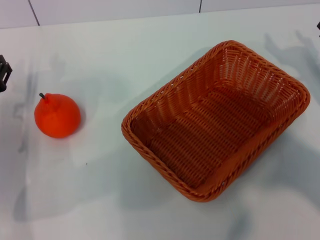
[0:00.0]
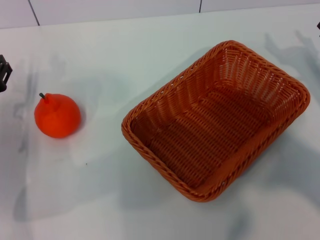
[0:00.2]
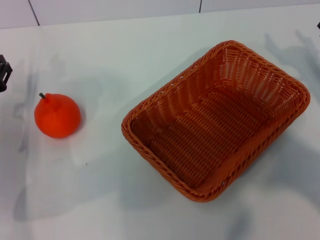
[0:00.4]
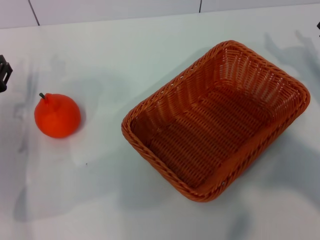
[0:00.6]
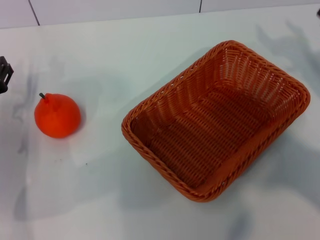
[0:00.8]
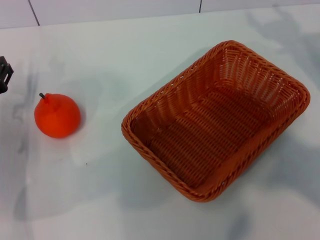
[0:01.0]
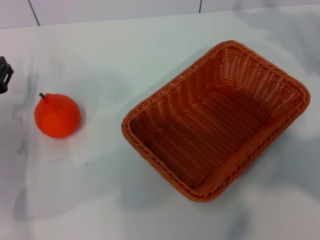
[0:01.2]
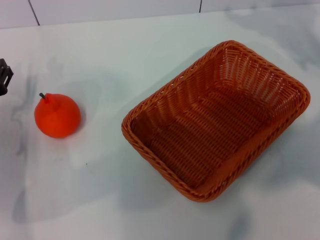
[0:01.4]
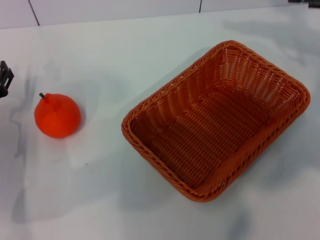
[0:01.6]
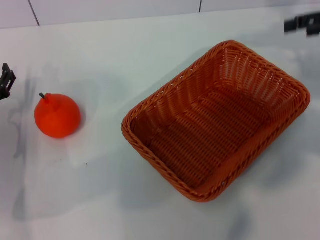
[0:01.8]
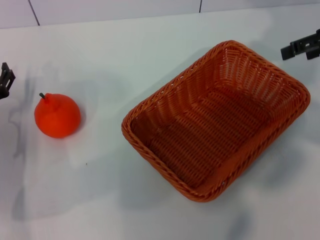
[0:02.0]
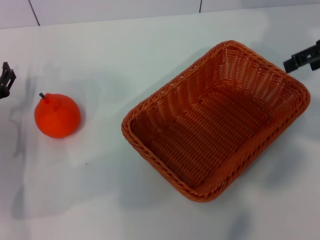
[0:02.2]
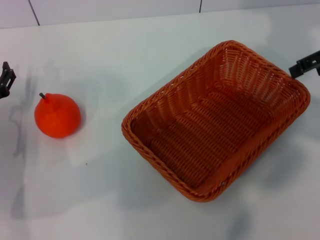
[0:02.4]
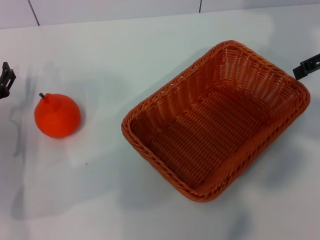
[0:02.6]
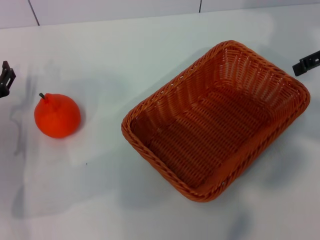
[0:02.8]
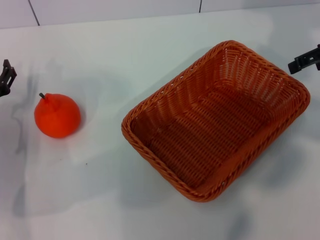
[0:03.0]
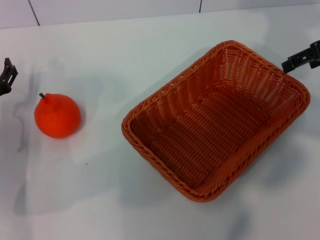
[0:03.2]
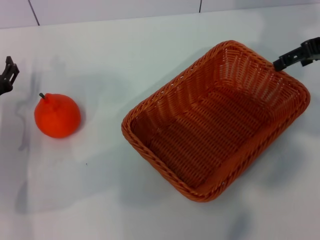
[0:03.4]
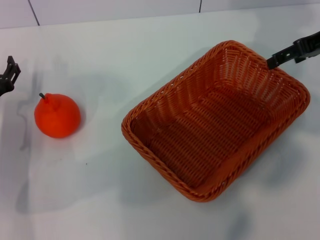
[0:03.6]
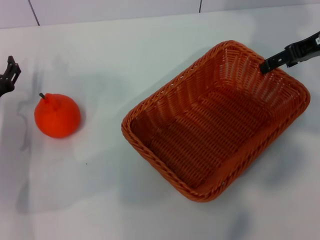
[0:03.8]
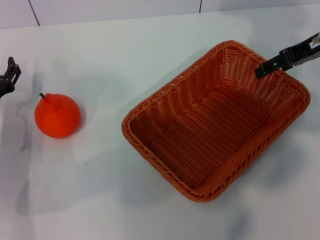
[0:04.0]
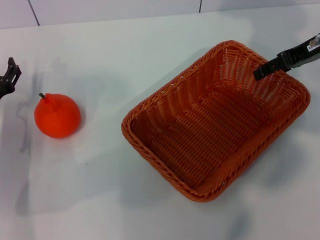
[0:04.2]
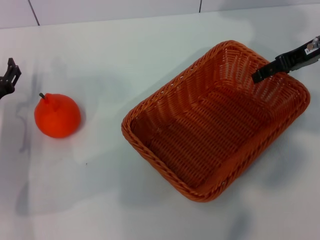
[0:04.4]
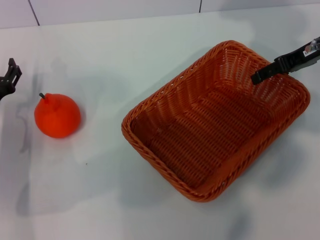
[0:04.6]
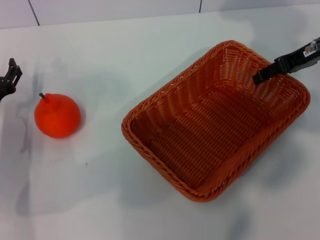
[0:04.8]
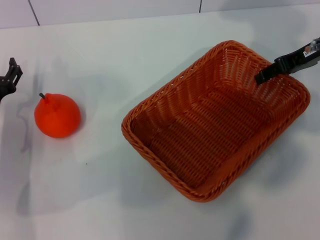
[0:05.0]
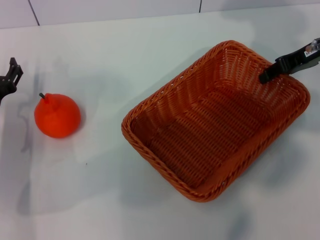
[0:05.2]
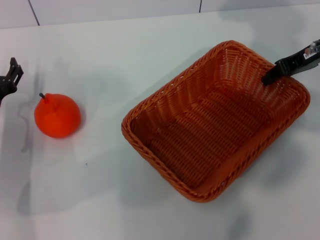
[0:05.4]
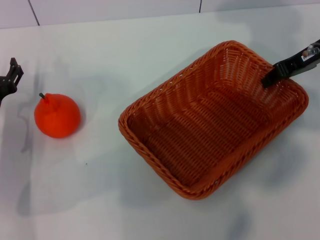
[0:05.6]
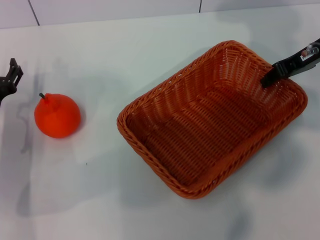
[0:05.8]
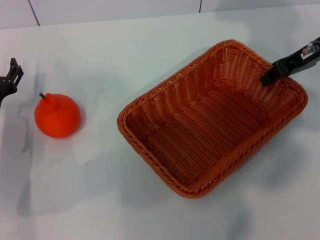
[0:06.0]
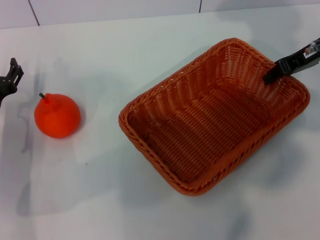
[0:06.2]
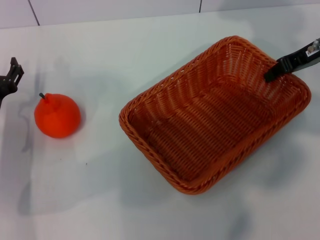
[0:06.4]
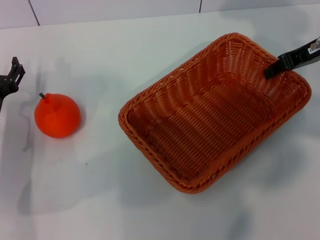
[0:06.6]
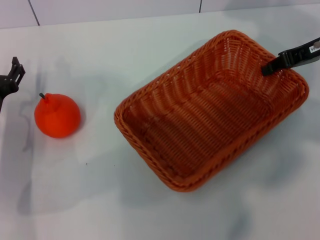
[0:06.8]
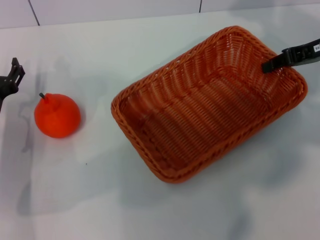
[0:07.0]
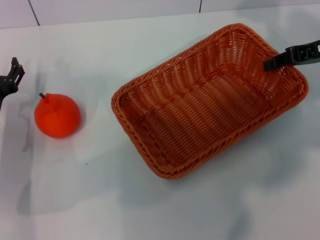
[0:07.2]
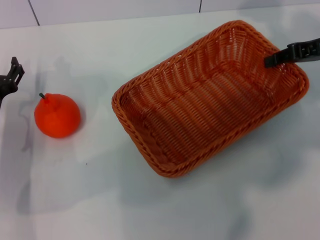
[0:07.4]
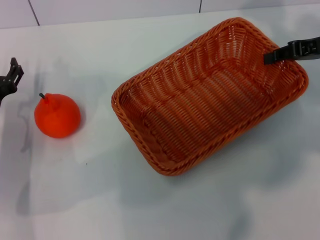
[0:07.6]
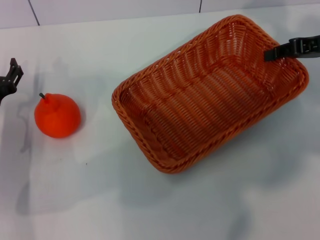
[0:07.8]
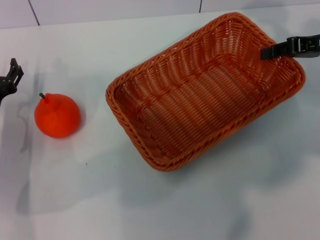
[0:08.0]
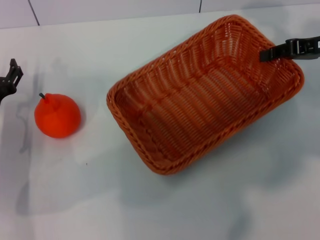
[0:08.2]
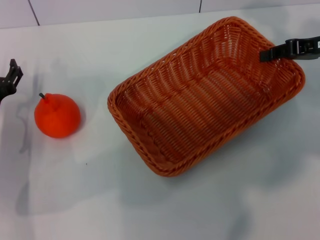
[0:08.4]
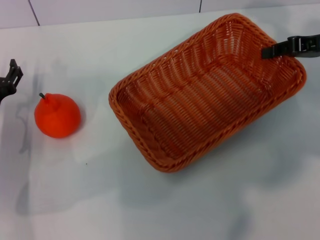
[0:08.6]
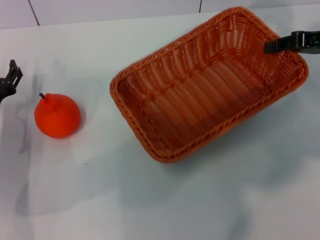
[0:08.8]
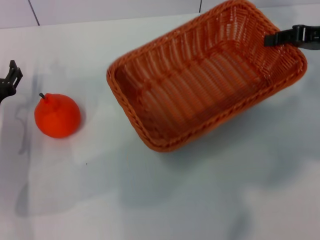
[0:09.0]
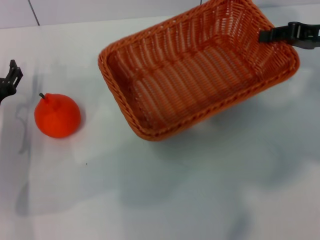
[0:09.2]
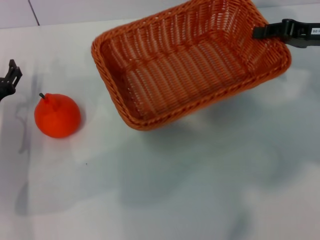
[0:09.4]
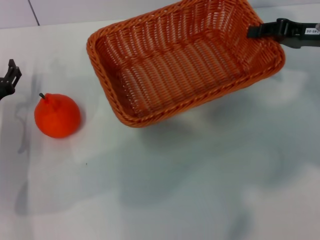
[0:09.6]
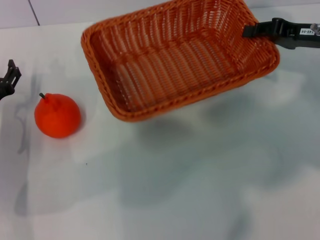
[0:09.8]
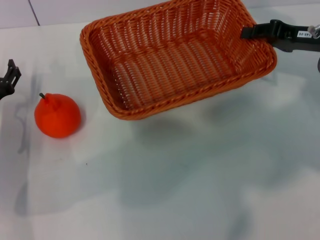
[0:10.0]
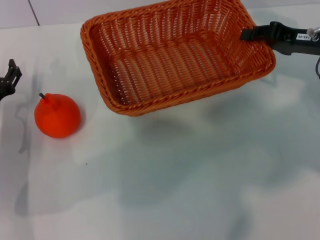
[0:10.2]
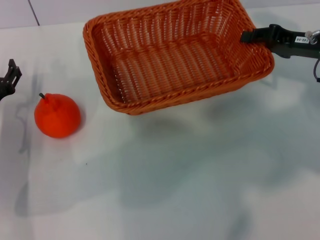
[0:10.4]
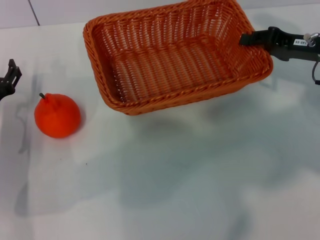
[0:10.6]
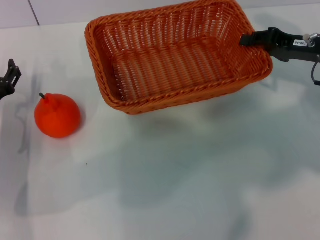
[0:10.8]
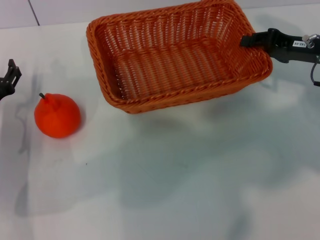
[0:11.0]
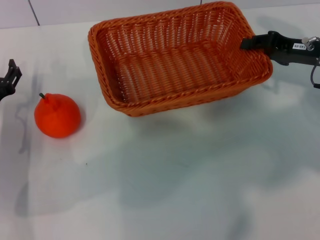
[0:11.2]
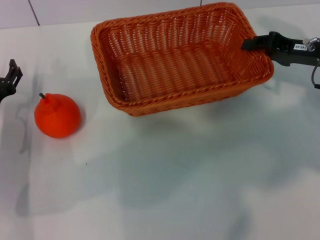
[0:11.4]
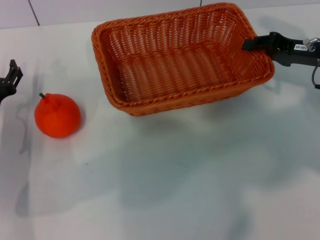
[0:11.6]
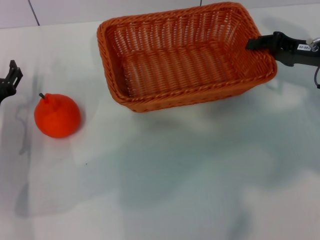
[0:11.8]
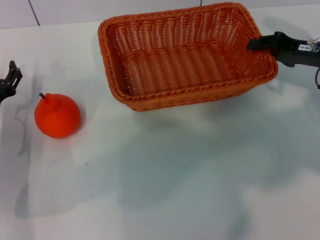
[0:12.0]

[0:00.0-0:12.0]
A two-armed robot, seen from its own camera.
Task of the whole recording: the right gripper pick up the yellow basket and place it horizontally in the middle of the table, the left gripper pick up the orange and place it into the yellow basket.
Step, 0.0 to 7.0 s: Pick up the light basket with the right gripper.
0.0 to 1.6 s: The right gripper goes about 15 cm upward and forward.
3.0 to 4.4 s: The right gripper shifts by roughly 5 cm.
4.4 to 6.0 s: The right gripper closes.
7.6 to 9.0 s: The grippers stay close to where they were, moving slightly.
9.0 to 10.4 s: The right gripper shifts by about 5 cm.
10.4 to 12.0 s: The grippers stay close to where they were, moving slightly.

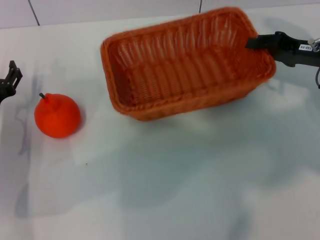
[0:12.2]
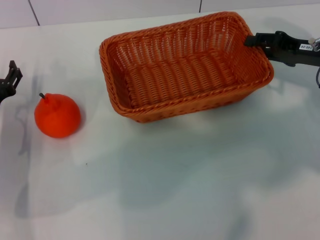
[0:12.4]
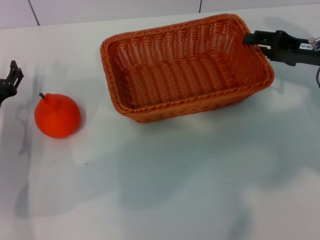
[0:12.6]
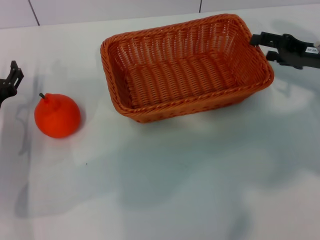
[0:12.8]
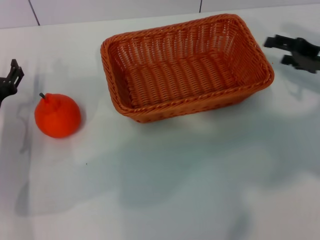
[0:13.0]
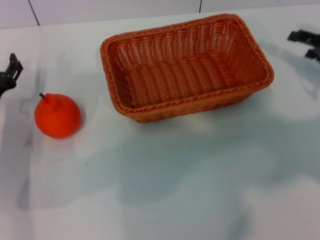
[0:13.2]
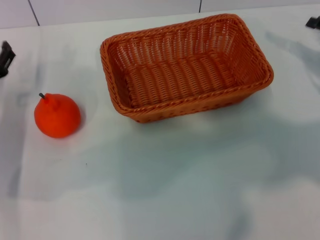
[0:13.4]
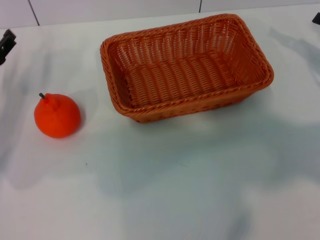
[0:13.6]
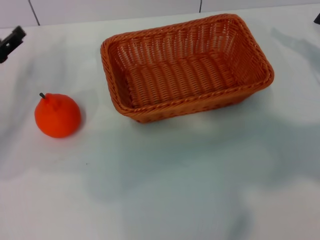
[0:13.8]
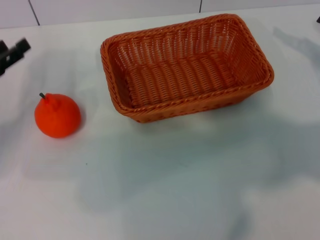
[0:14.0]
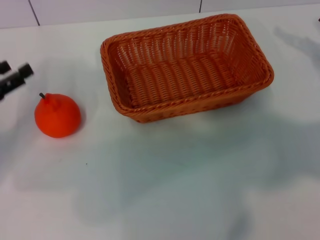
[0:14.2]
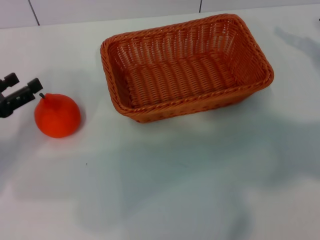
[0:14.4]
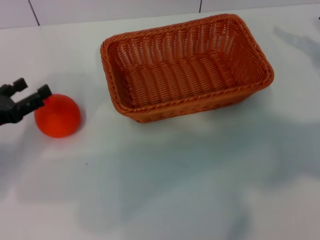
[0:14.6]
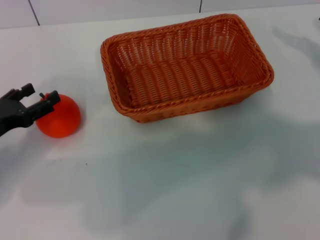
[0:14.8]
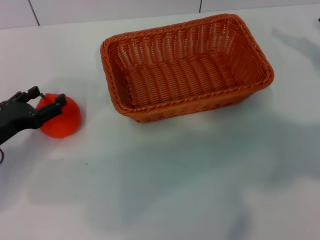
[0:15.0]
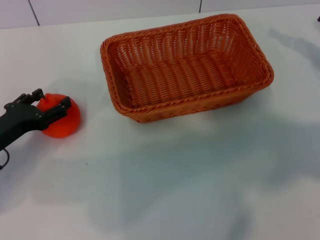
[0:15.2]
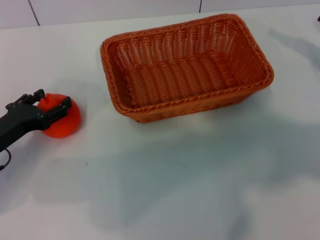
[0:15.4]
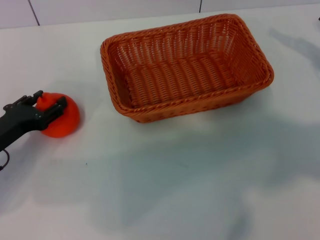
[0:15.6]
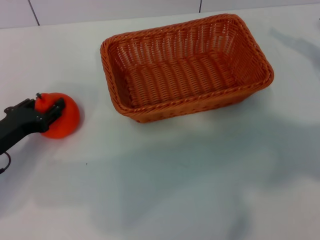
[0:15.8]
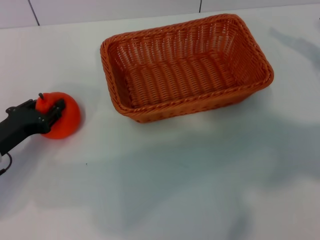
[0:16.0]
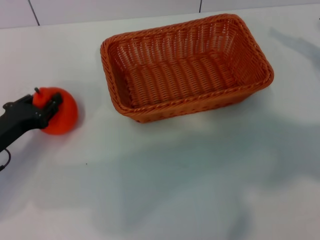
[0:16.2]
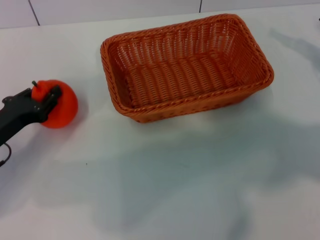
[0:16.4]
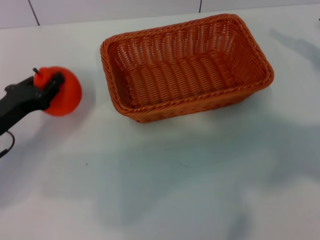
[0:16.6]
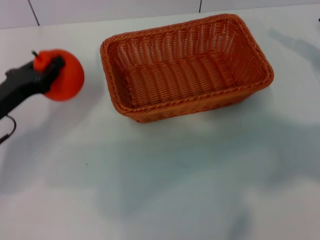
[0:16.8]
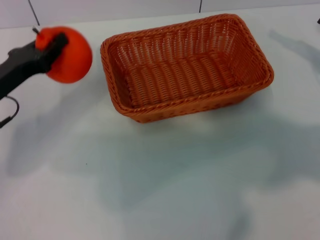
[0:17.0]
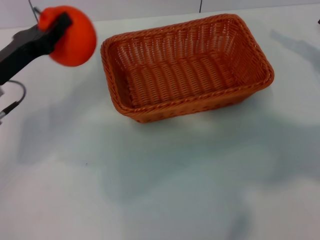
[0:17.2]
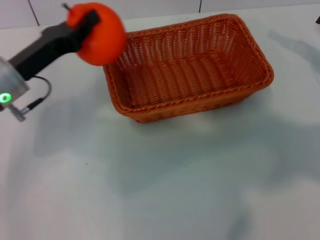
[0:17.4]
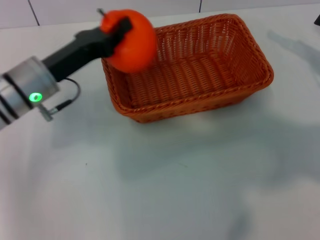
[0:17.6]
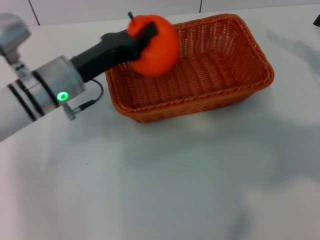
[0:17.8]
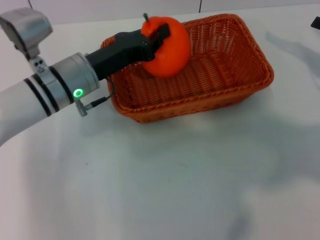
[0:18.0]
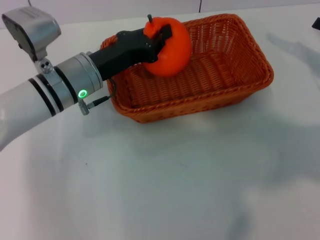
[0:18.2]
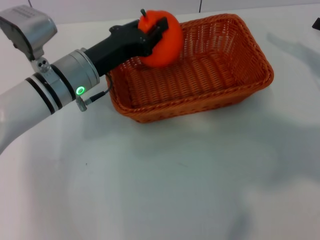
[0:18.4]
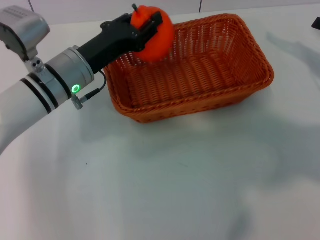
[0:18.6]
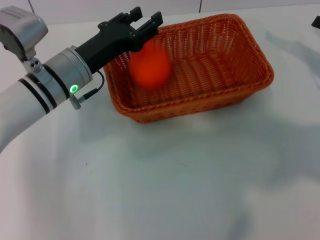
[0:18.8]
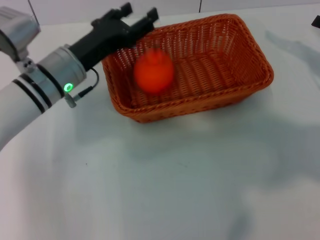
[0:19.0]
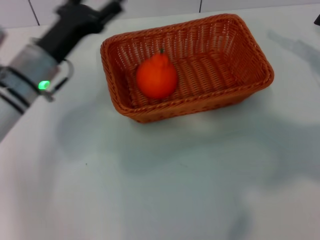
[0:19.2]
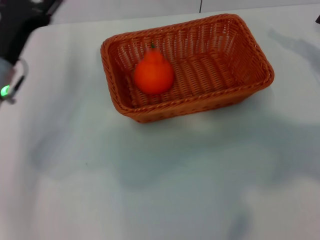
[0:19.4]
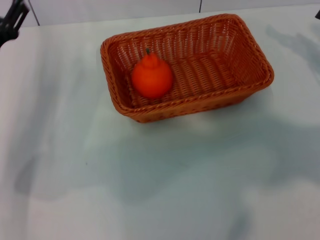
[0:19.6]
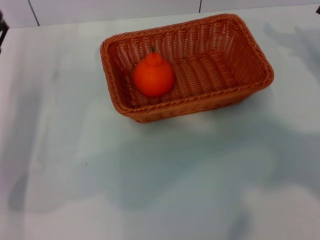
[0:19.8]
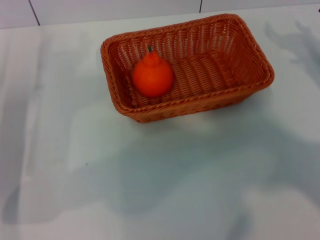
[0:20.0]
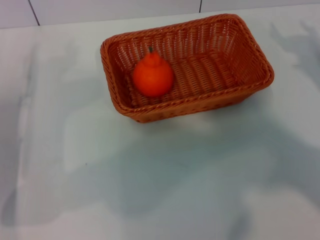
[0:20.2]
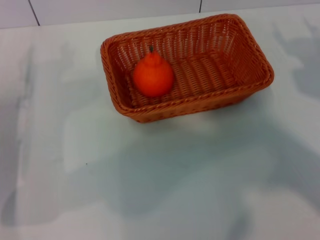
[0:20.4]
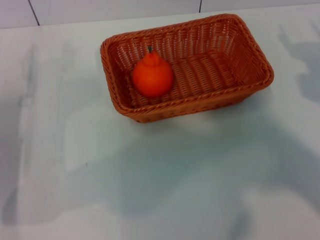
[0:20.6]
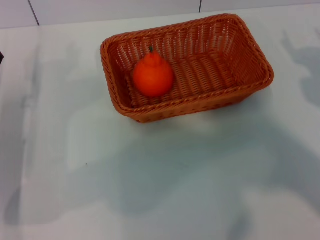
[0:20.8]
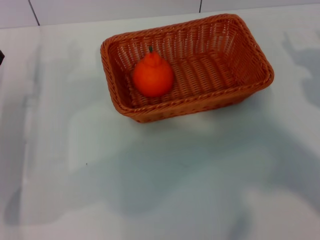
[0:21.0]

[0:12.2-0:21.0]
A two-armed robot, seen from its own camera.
Task of the whole recording: the right gripper pick up the yellow basket and place it horizontally in the middle of the table, the left gripper pick up the orange and place it into the yellow basket.
Step, 13.0 to 16.4 s: Pick up the orange with the left gripper.
Step, 16.8 to 18.8 s: Place the orange into the light basket with the left gripper.
12.2 to 13.6 s: The left gripper moves about 5 cm; the right gripper heads to the right, covering some 10 cm, and opens up.
13.6 to 15.2 s: The left gripper heads backward, covering some 5 cm.
15.2 to 16.6 s: The left gripper closes up.
16.6 to 18.0 s: The left gripper shifts some 15 cm to the right and forward.
18.0 to 19.6 s: The left gripper goes some 10 cm to the left, and opens.
19.6 to 21.0 s: The left gripper shifts by roughly 5 cm, while the right gripper travels backward and downward by some 10 cm.

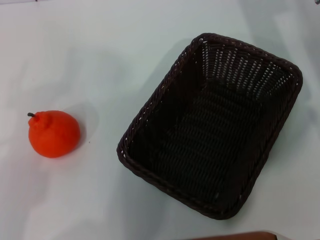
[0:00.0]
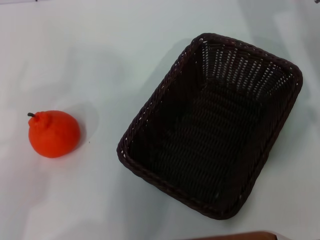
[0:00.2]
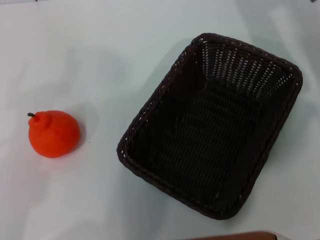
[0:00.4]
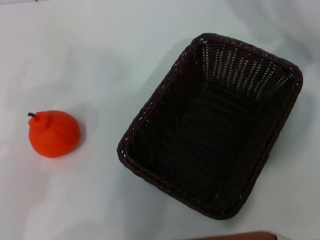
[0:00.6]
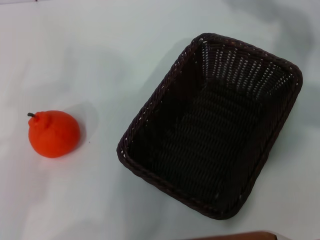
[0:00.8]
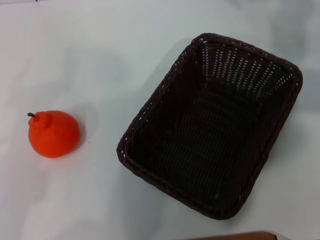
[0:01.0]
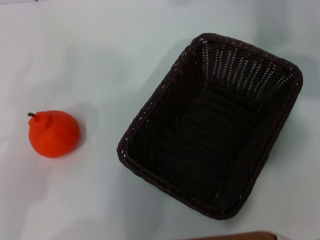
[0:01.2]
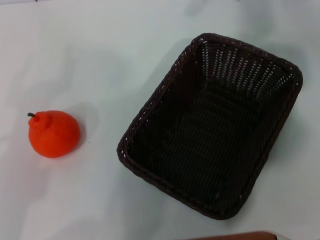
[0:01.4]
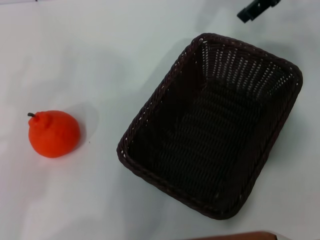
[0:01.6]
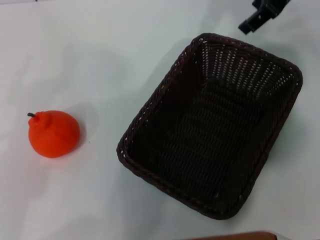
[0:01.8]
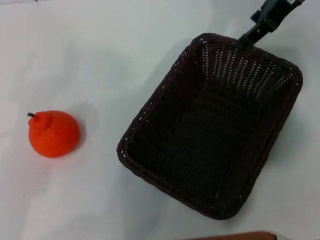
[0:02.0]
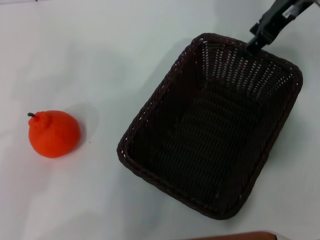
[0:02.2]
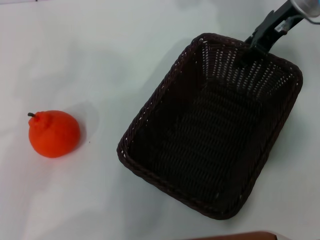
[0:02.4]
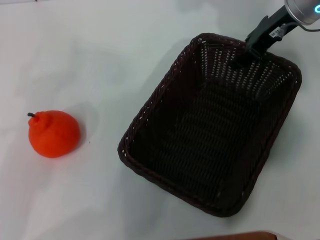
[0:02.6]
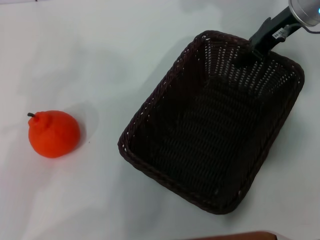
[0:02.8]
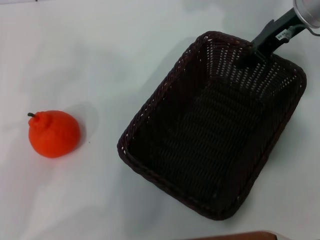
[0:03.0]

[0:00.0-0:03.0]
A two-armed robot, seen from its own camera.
Task of the whole recording: the right gripper pick up the black basket and place it horizontally in the middle of the table, the left gripper pick up the orange and place it into the black basket.
0.0 to 1.6 s: The right gripper is displaced upward by some 15 cm.
1.6 to 3.0 s: The right gripper moves downward, some 10 cm, and closes up.
